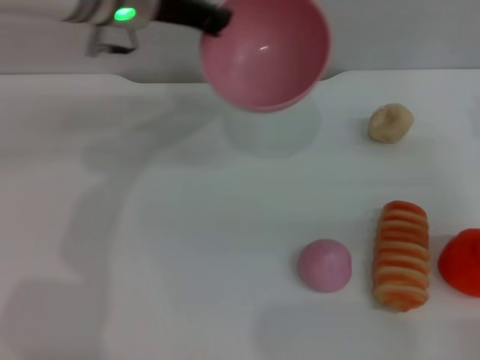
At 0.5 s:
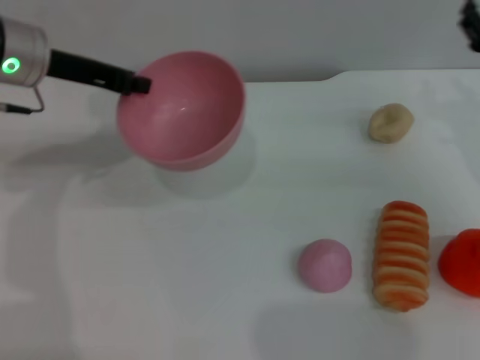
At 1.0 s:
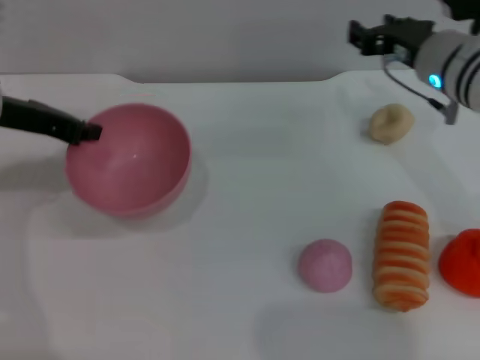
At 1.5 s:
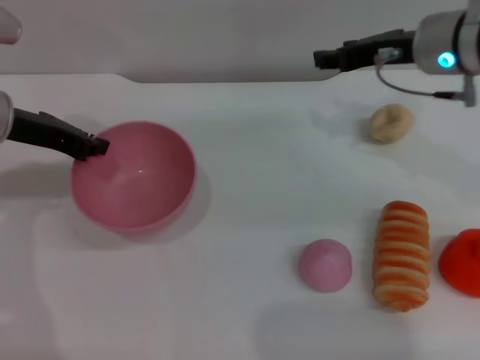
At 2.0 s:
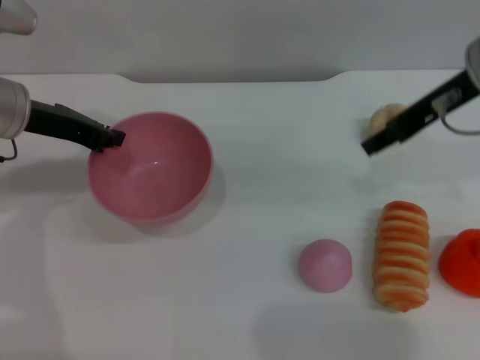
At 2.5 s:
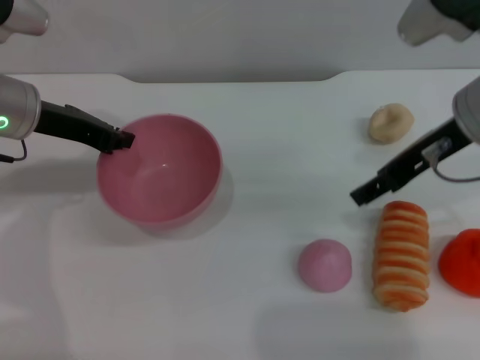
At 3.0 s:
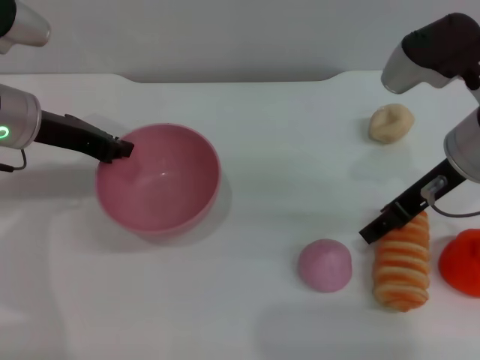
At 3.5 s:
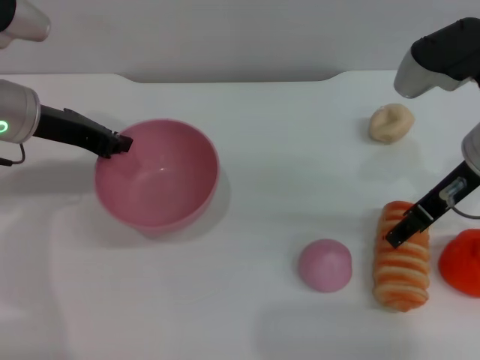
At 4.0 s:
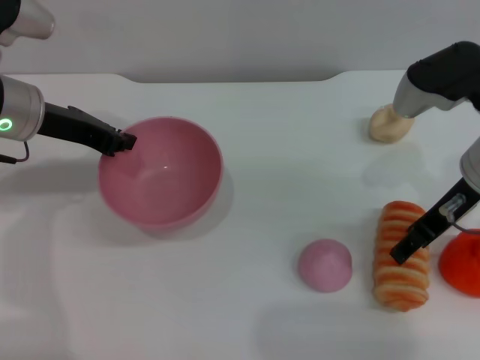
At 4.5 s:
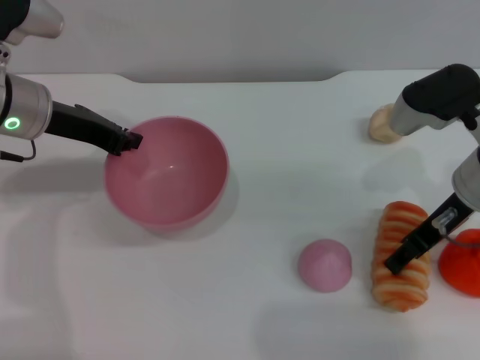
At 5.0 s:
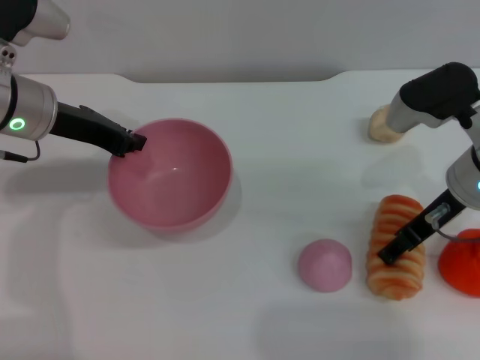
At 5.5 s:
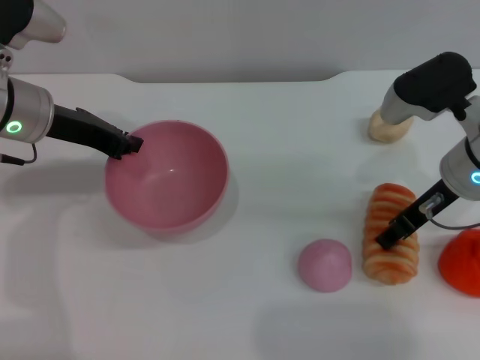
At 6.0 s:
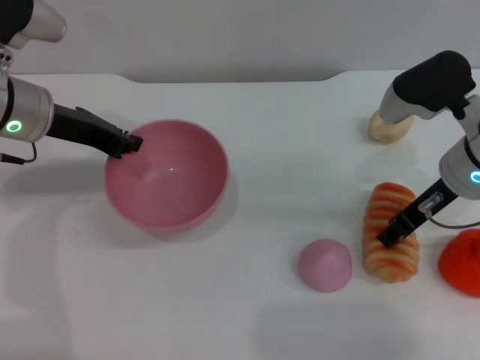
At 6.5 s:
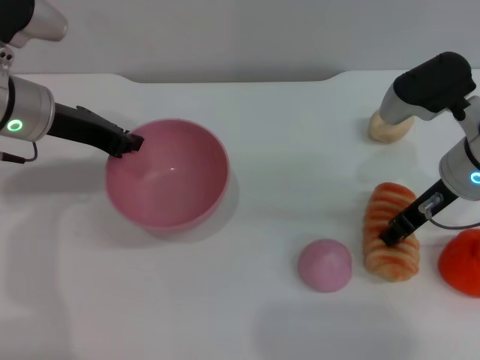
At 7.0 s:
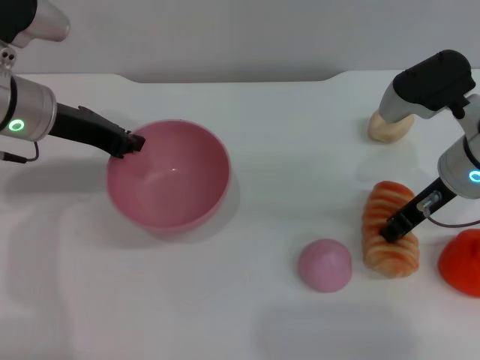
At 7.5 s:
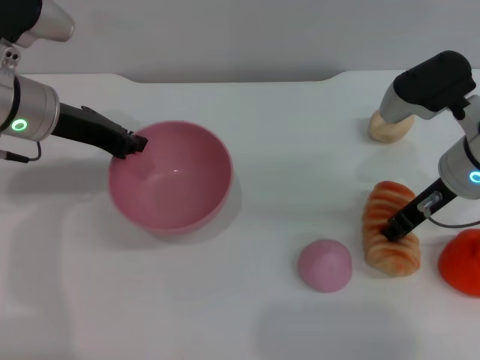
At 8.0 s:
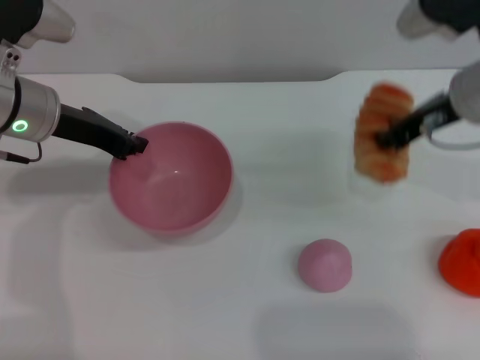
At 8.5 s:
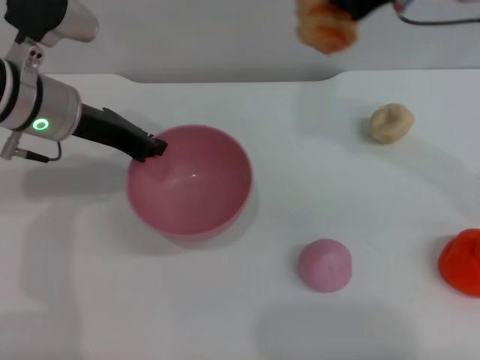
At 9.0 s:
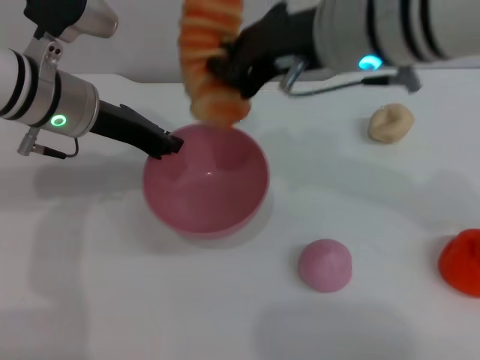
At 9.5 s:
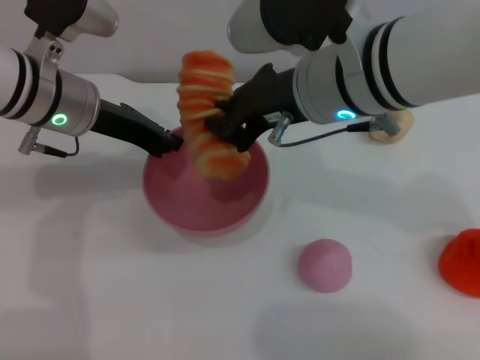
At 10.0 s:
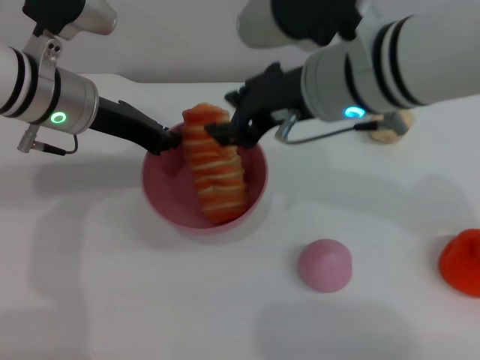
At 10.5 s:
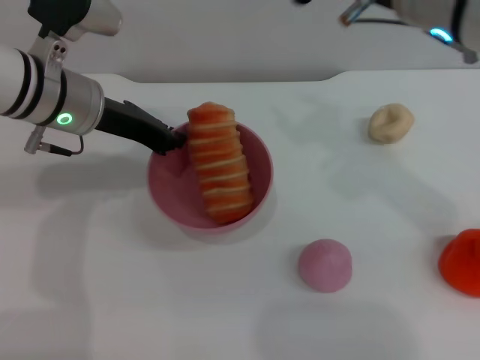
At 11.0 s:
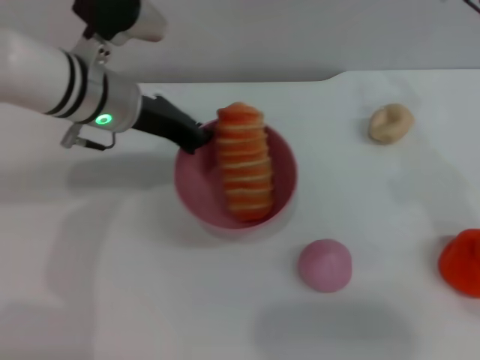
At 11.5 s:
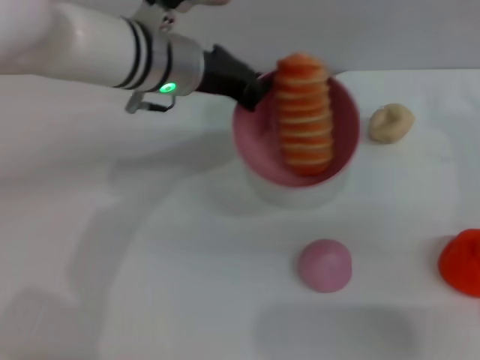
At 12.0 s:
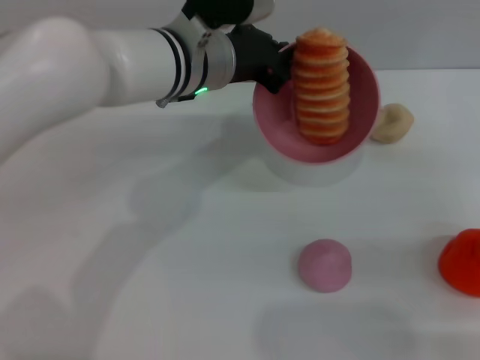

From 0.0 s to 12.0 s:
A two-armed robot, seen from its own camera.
Task of the whole recording: put the bread into the pink bowl and pour it out repeatedly.
Step, from 0.0 s to 7.5 s: Pick up the bread with the right gripper.
Step, from 8.0 s to 10.0 s: Place the bread into the bowl.
From 0.0 s to 2.0 s: The right gripper travels upward, to the left and forward by about 20 cm; the left gripper heads to the left, downward and backward, covering roughly 15 cm.
From 2.0 s to 4.0 s: The right gripper moves downward, approximately 10 cm.
From 4.0 s to 6.0 s: The right gripper closes up.
From 6.0 s to 8.0 s: The right gripper moves upward, roughly 5 cm, and closes up.
From 8.0 s to 10.0 s: The right gripper is displaced to the left by some 10 cm, and opens up.
From 10.0 s to 12.0 s: The right gripper heads to the right, covering approximately 25 cm. Meanwhile the left gripper moves to the right, roughly 15 cm.

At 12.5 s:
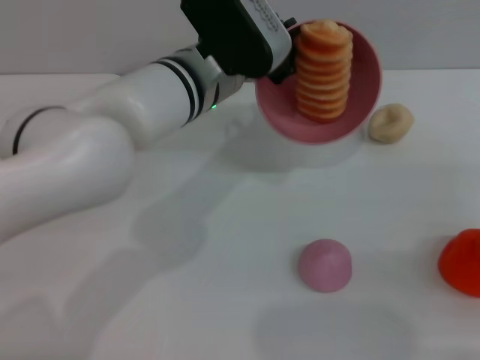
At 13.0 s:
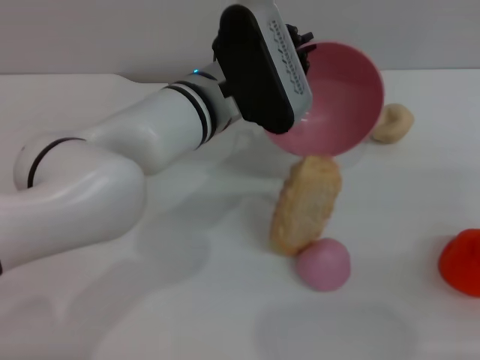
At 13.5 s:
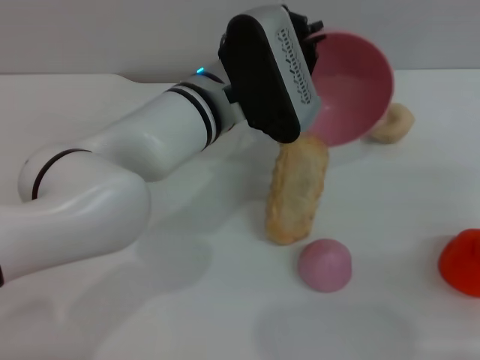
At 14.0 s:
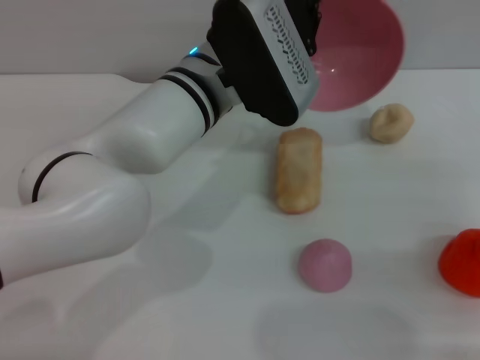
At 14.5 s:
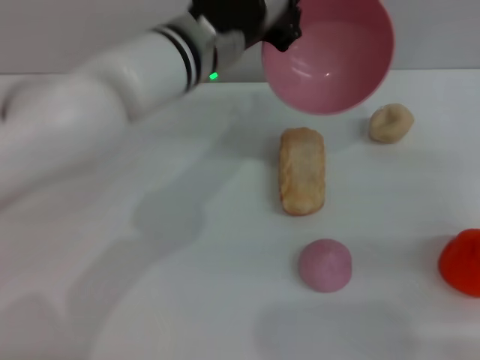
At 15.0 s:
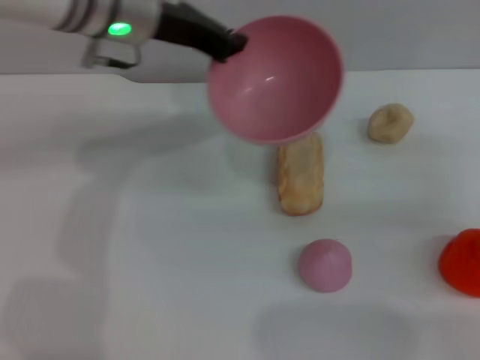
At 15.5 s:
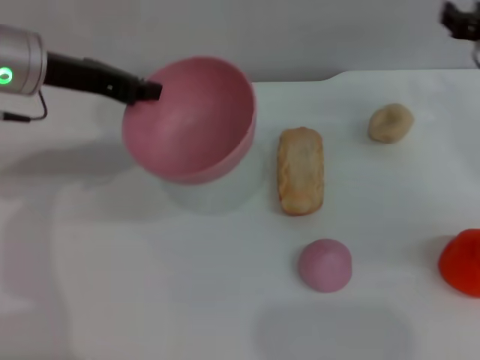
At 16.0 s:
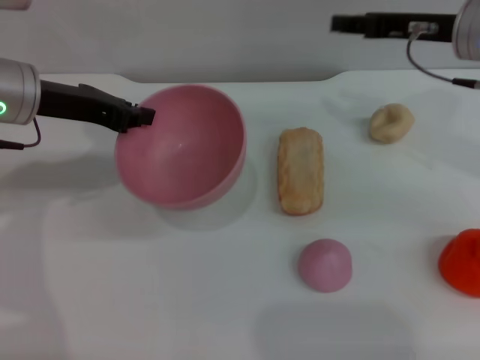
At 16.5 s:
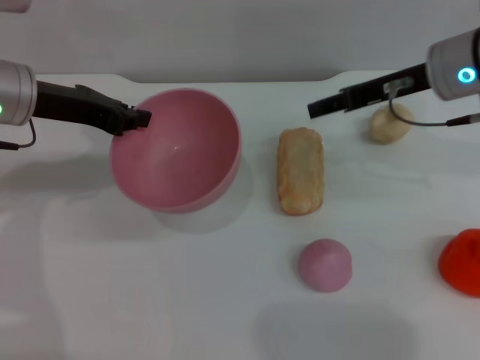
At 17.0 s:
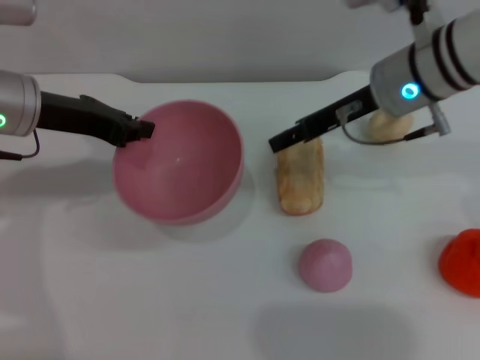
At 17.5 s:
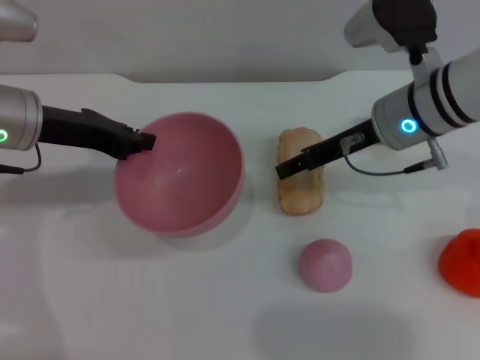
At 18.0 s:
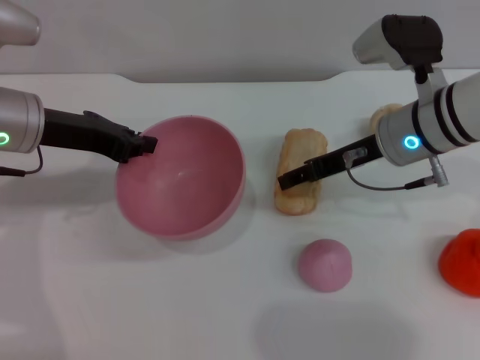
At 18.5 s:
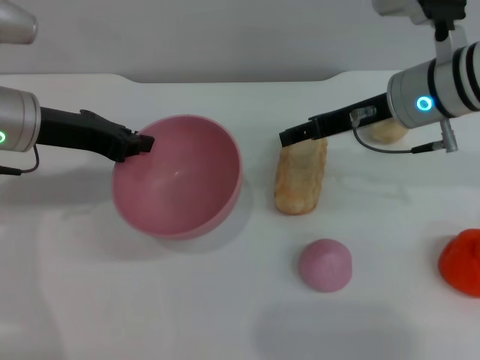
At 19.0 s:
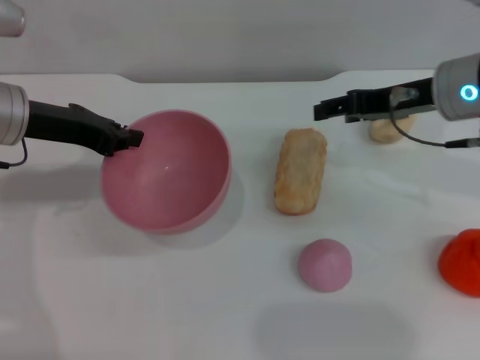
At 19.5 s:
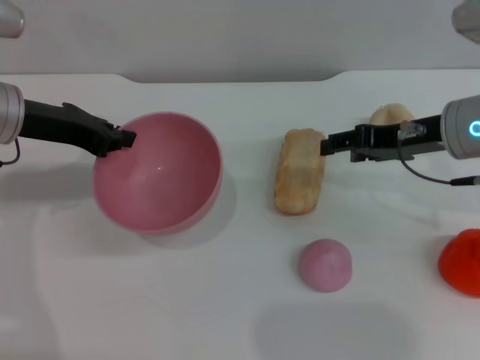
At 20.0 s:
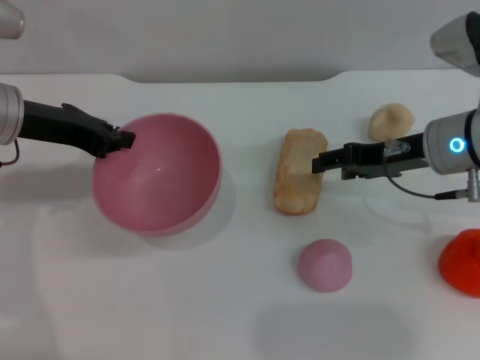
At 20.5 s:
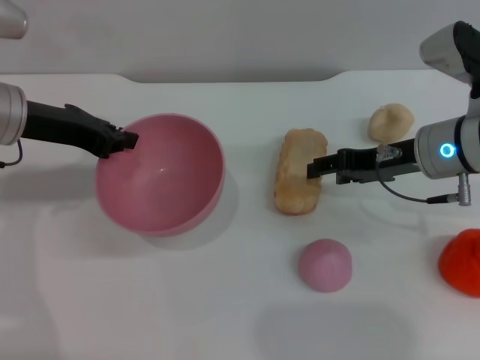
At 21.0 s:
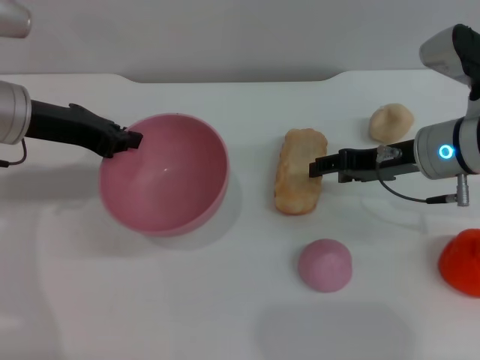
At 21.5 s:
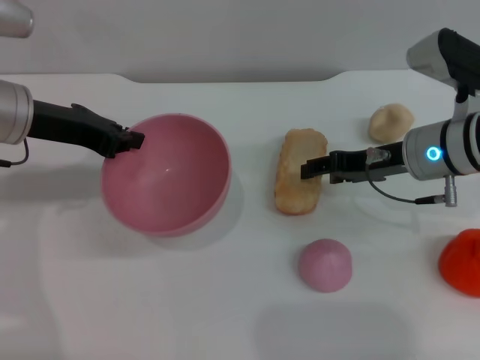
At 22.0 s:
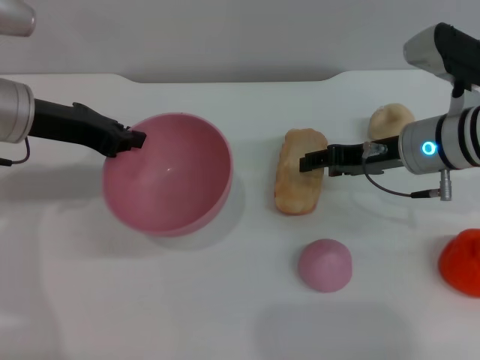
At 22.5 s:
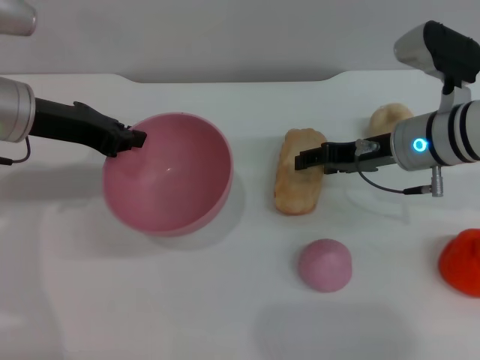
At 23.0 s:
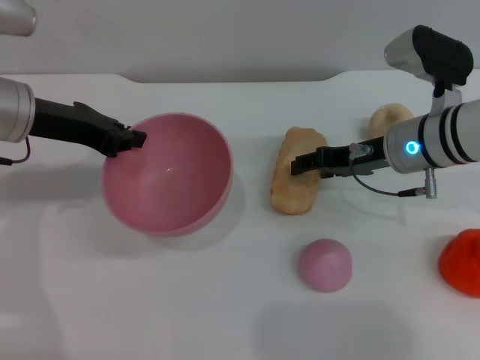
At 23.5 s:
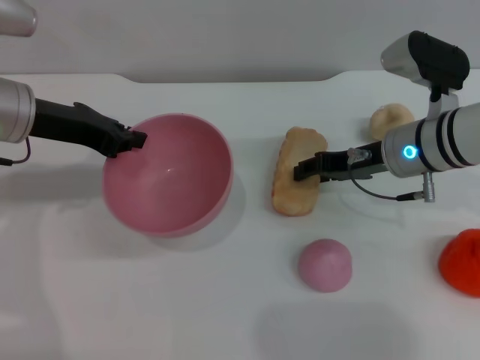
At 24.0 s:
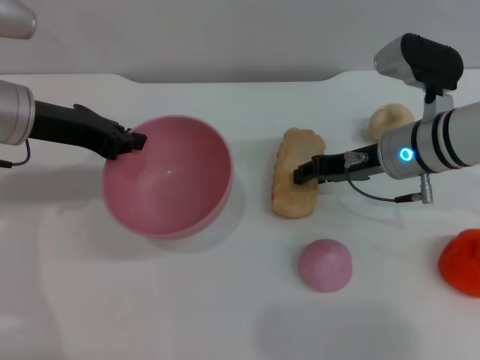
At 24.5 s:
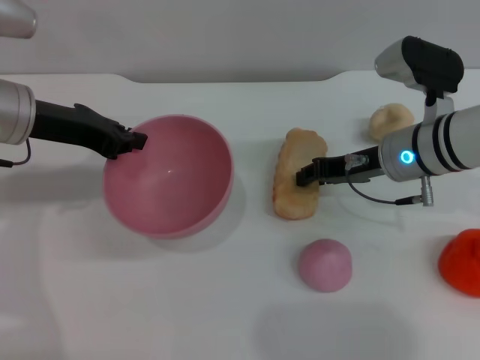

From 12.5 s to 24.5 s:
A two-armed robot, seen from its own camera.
Task of the whole recording: put the bread into the pink bowl and pour it out repeatedly.
From 14.5 s to 16.5 s: The right gripper heads forward, to the left and upward, covering approximately 15 cm; the left gripper moves to the left, about 20 cm.
From 18.5 s to 20.5 s: The right gripper moves roughly 5 cm.
From 20.5 s to 22.5 s: The grippers stay close to where they were, moving slightly.
From 22.5 s to 24.5 s: The right gripper closes.

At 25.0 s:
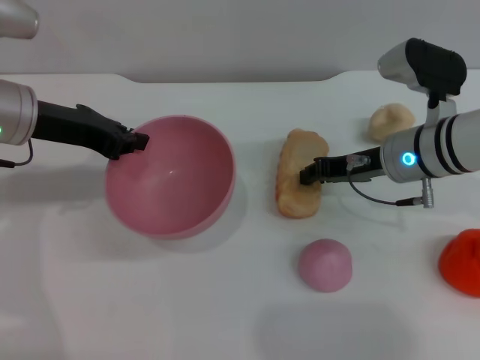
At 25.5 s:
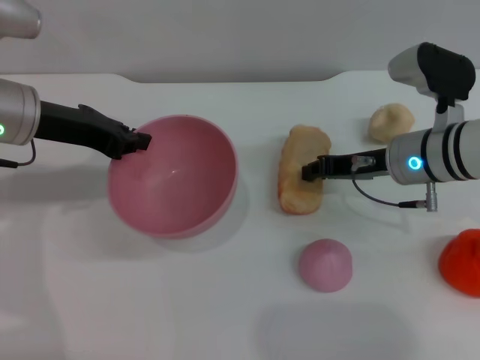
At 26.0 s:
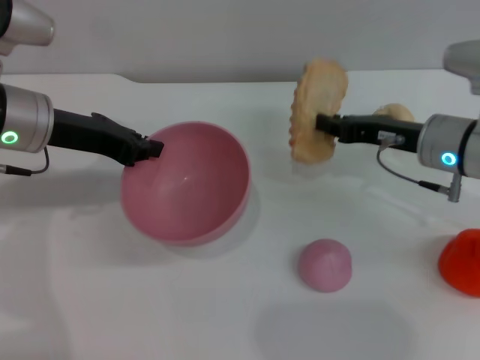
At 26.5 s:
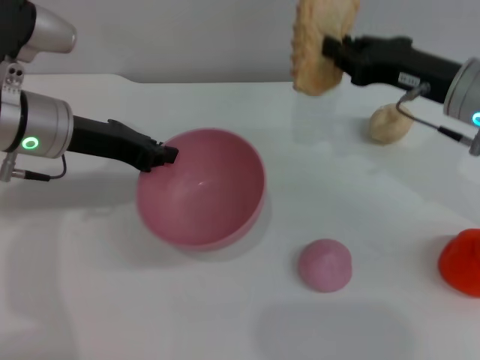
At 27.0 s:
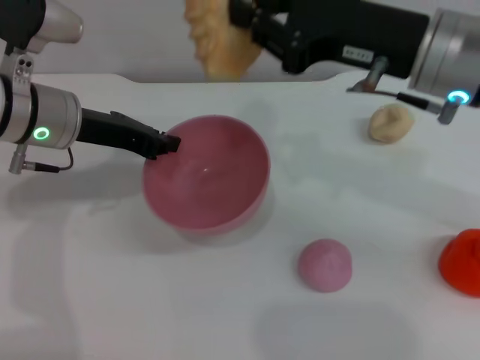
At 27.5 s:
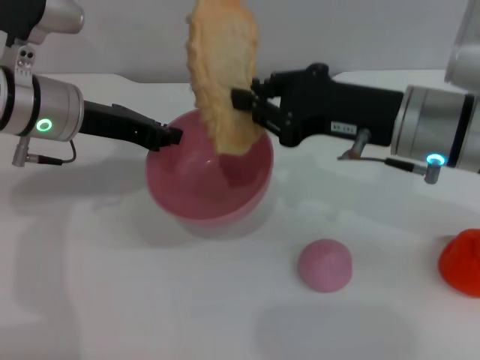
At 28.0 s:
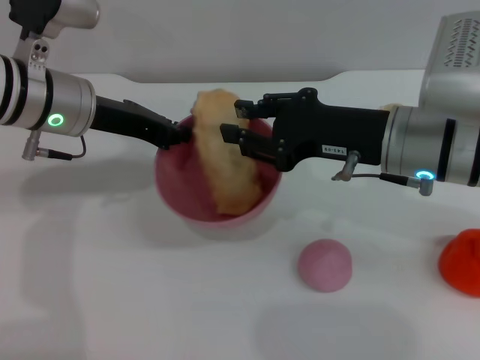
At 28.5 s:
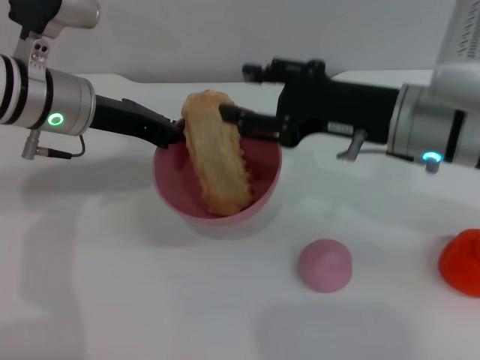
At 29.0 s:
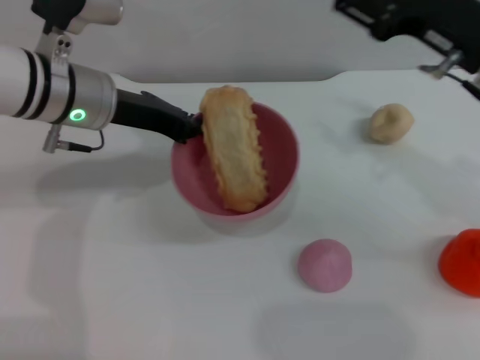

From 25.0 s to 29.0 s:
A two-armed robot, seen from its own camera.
Task of the whole recording: put the bread into the pink bowl and pour it out repeatedly.
Step, from 26.5 s to 28.5 s: Place the bread into the bowl.
From 25.0 s to 27.0 s: The right gripper shifts some 15 cm upward and backward.
From 27.0 s to 29.0 s: The right gripper heads to the right, covering about 5 cm, and opens its fingers.
